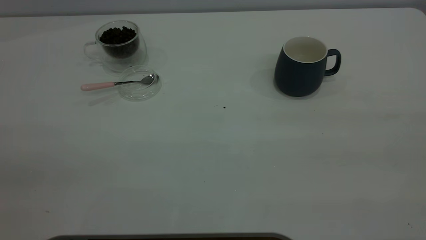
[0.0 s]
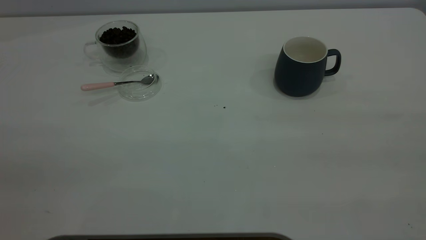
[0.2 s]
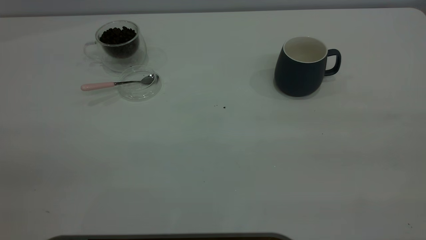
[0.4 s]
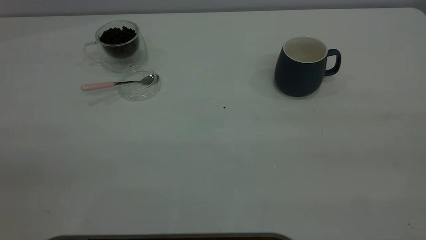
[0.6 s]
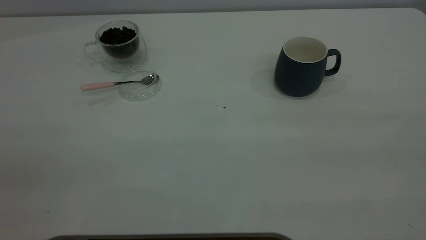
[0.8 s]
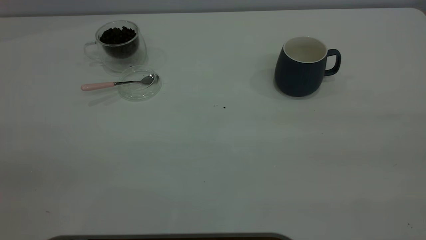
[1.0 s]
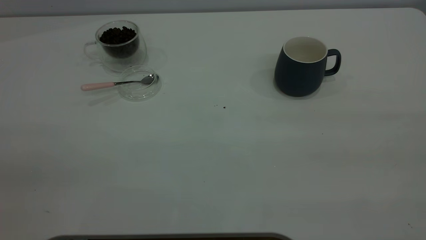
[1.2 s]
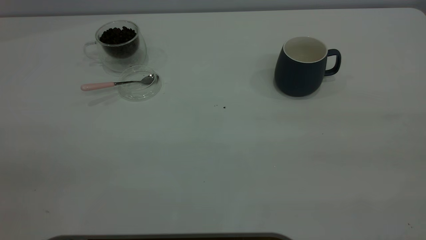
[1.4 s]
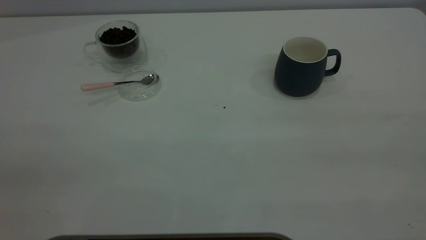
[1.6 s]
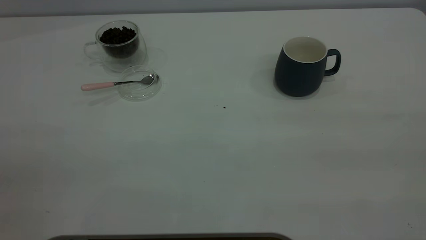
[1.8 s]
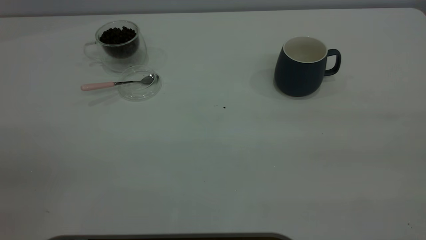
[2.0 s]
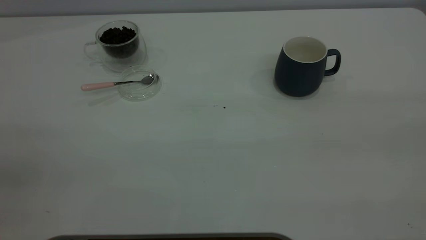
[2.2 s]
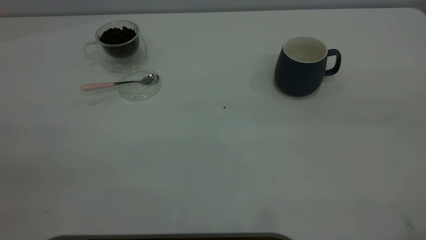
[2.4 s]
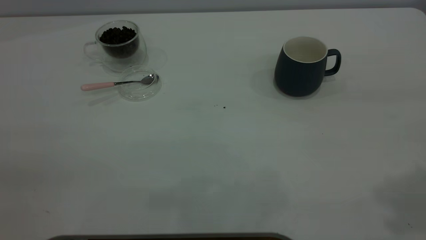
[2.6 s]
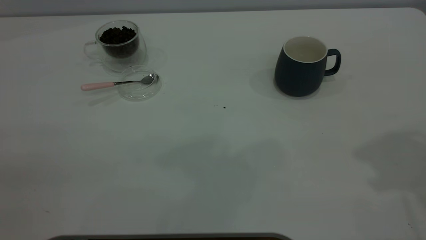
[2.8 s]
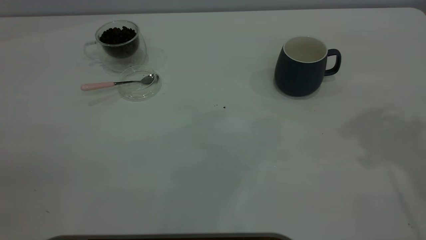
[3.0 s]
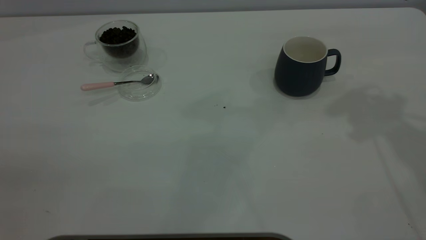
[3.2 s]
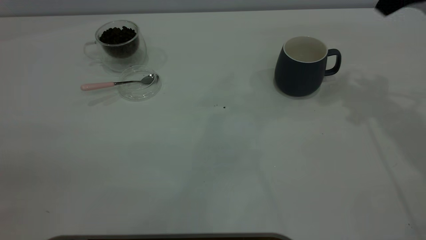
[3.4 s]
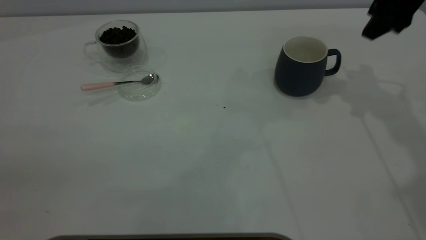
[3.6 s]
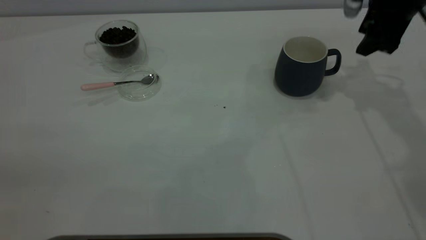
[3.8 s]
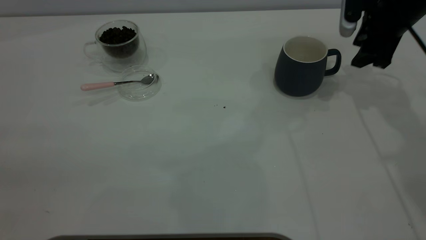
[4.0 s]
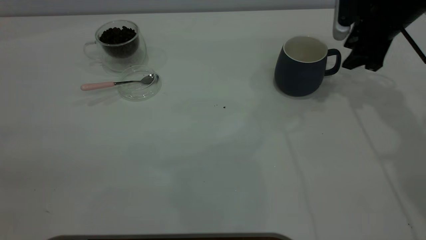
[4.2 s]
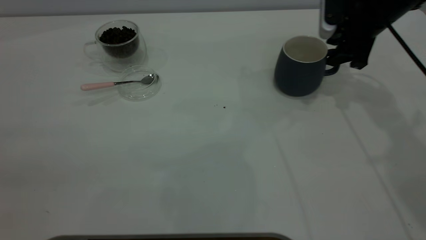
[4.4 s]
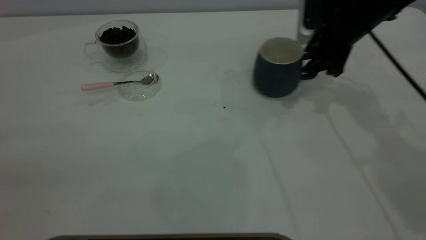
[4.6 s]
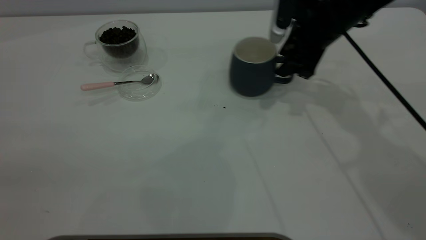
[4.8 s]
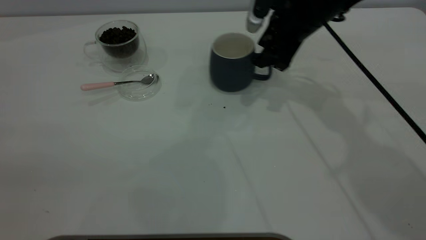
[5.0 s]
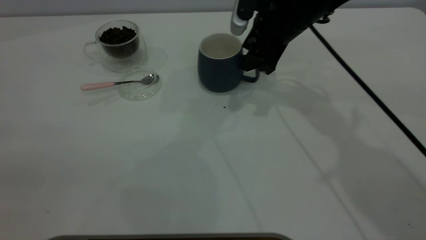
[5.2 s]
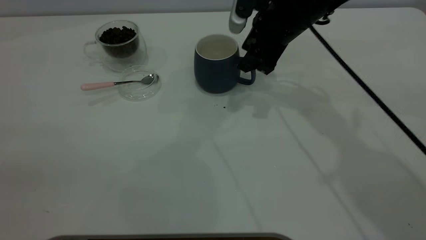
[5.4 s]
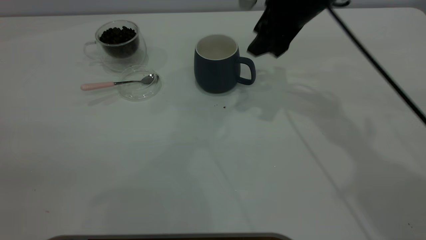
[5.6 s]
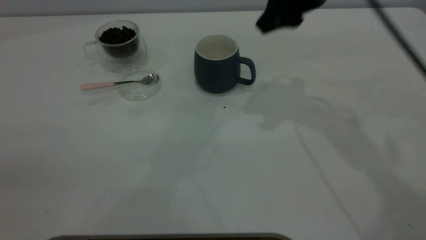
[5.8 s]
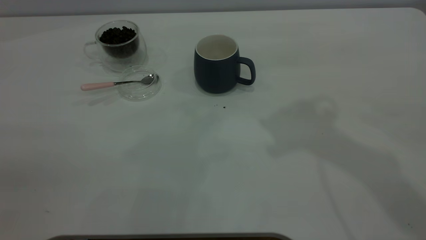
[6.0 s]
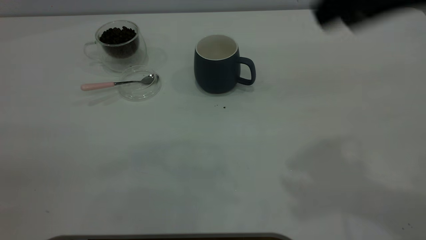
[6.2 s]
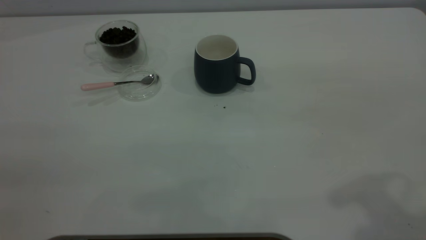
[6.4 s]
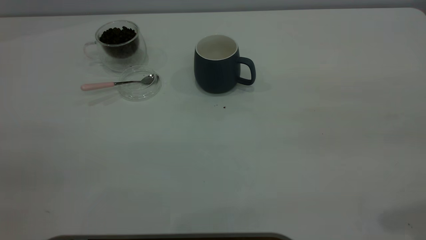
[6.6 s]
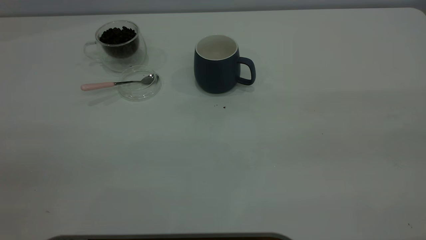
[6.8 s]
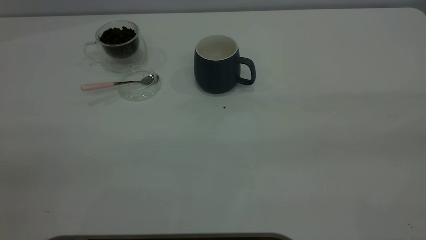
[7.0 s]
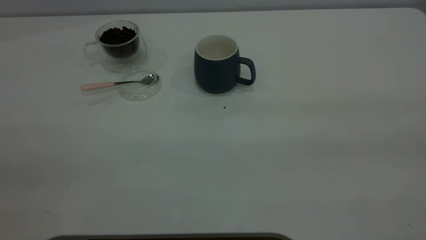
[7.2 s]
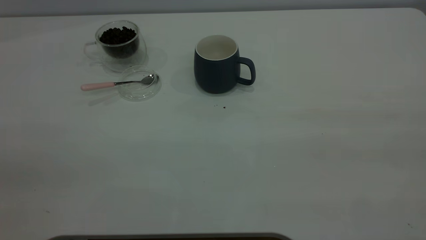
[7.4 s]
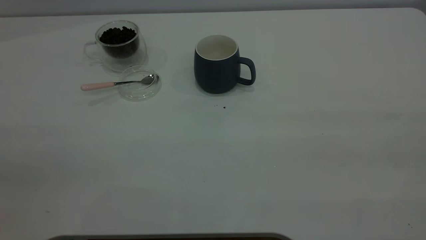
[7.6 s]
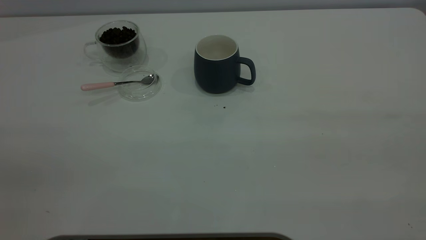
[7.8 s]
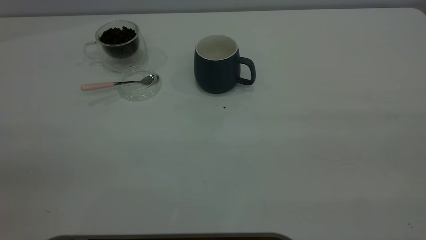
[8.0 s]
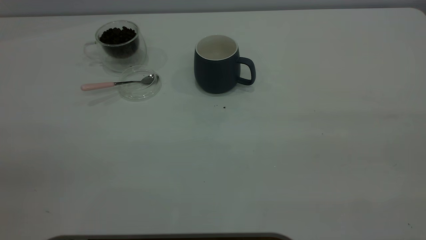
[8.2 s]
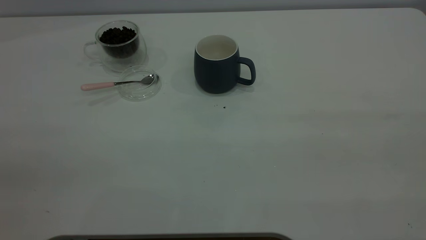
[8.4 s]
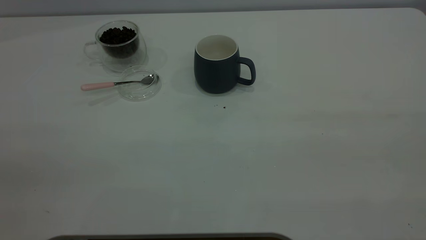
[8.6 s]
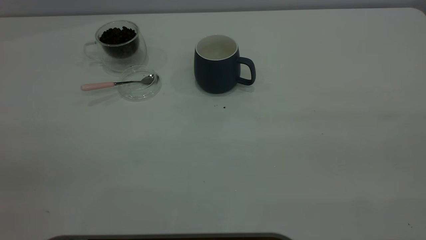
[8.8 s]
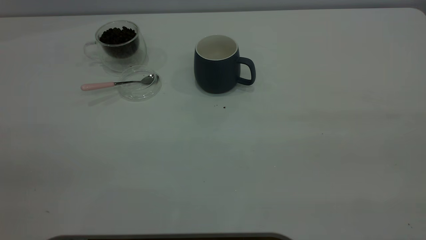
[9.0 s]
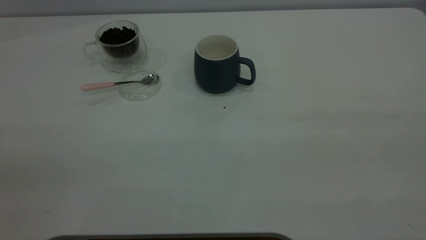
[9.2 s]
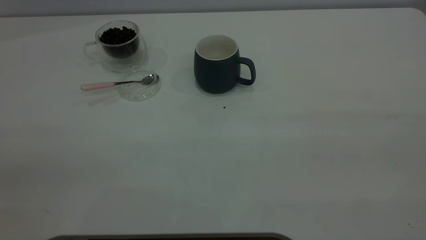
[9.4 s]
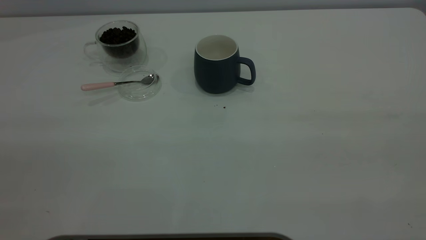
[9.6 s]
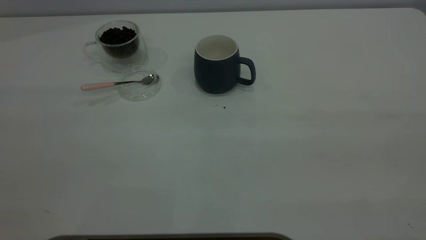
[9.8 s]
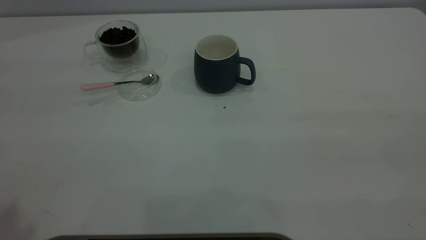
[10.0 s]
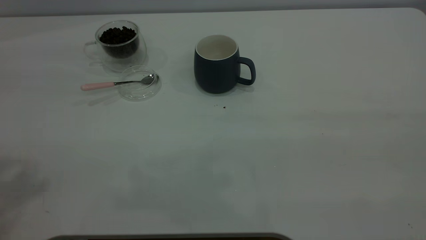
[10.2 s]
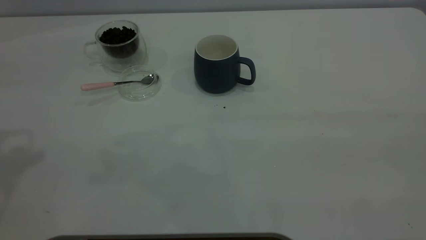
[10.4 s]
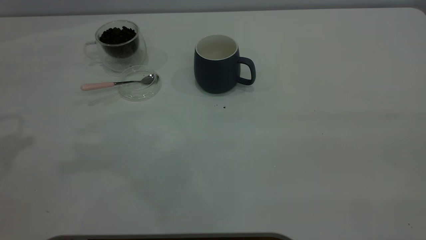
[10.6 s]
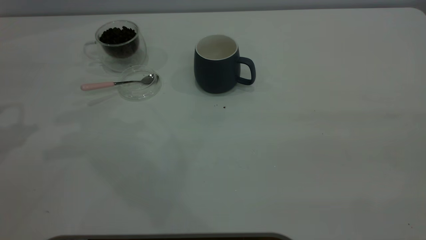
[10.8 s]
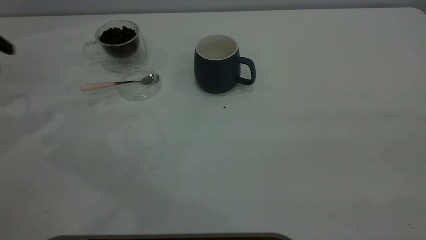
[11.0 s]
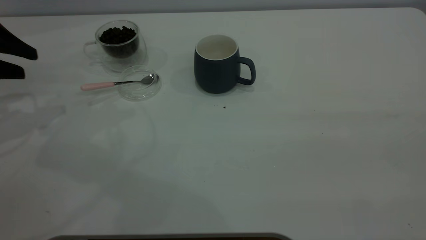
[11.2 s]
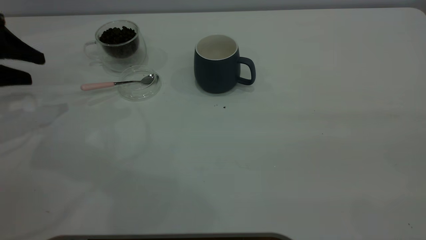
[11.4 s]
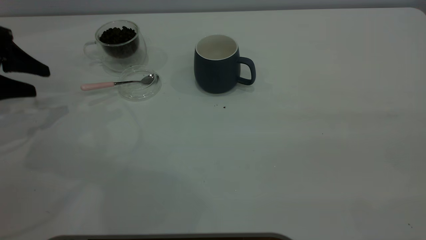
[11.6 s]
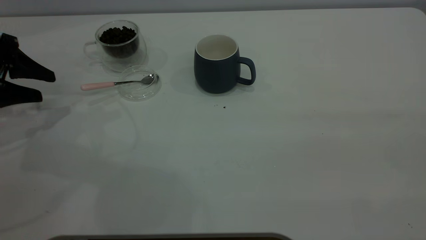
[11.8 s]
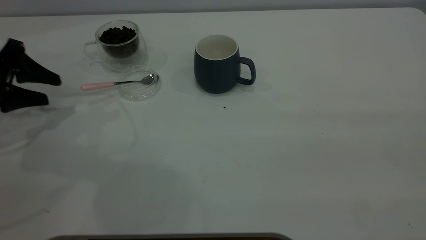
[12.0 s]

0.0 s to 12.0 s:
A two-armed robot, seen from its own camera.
Task of the whole recording: the right gripper place the grey cup in the center of the table, the left gripper take the pink spoon from the cup lid and scoop out the coffee beans from the coffee cup and put them into the grey cup, the left gripper put the spoon back into the cup lid.
Step, 0.0 to 5.4 s: Move the cup to the center of view.
0.0 to 1.6 s: Both grippers stay put.
3.0 to 4.4 s: The right gripper goes some 25 cm downward and forward.
4.4 to 6.0 s: The right gripper goes some 25 cm upward, backward and to the left.
7.6 to 9.0 s: Both grippers stay put.
10.4 to 12.0 s: The left gripper travels downward by some 25 cm.

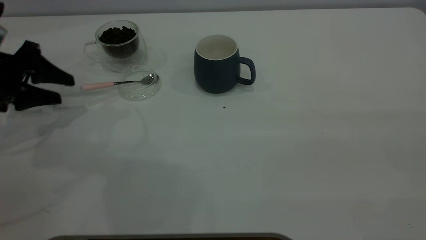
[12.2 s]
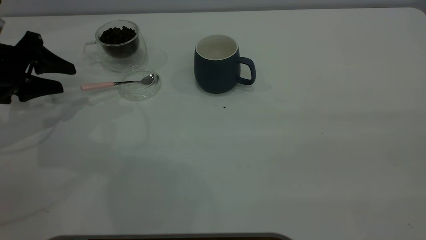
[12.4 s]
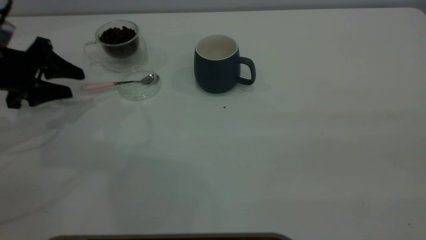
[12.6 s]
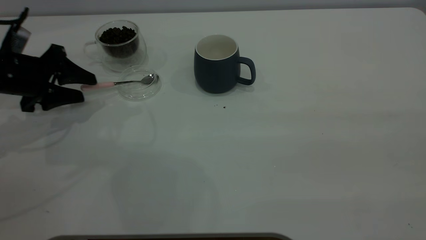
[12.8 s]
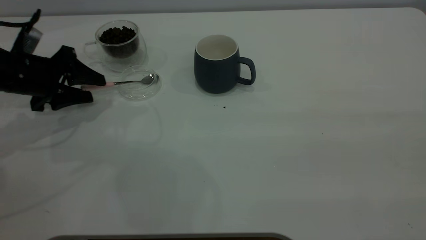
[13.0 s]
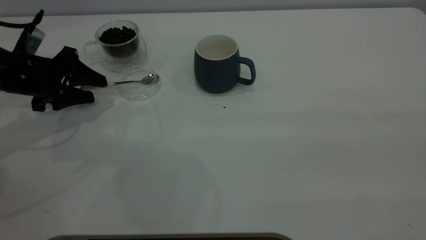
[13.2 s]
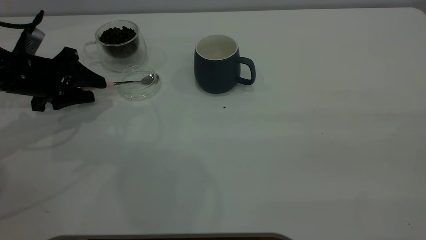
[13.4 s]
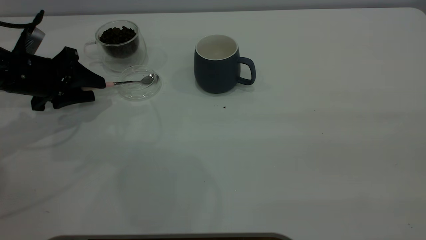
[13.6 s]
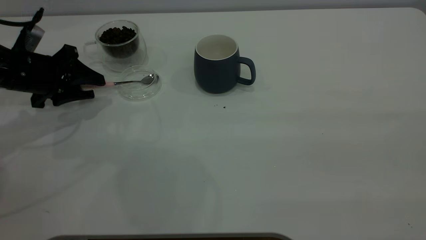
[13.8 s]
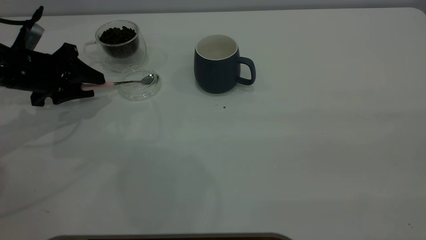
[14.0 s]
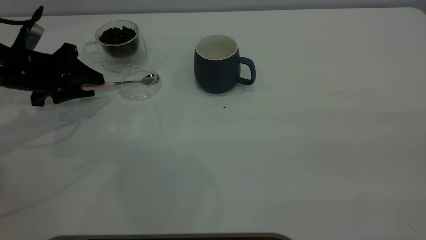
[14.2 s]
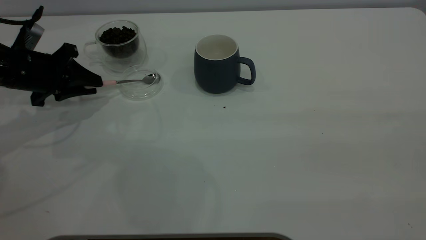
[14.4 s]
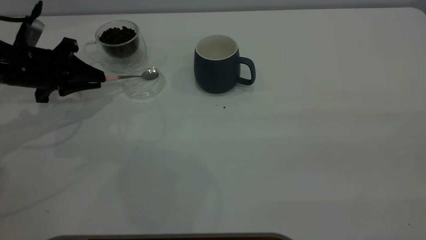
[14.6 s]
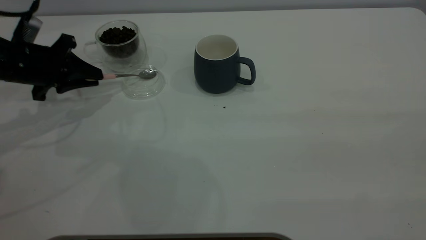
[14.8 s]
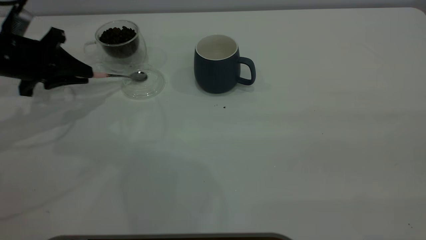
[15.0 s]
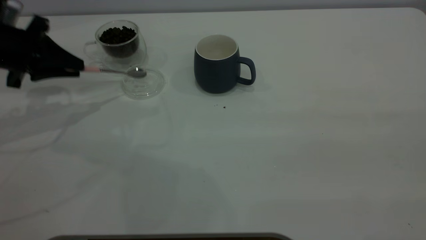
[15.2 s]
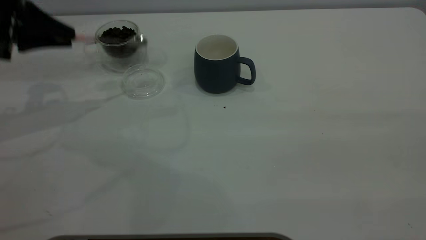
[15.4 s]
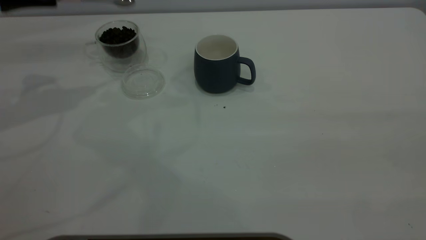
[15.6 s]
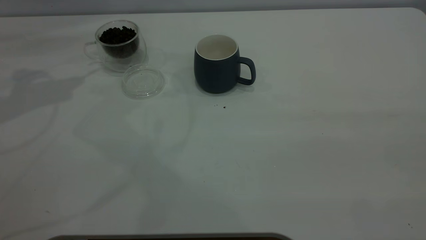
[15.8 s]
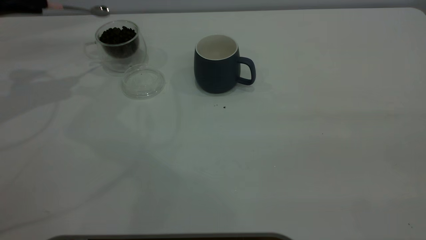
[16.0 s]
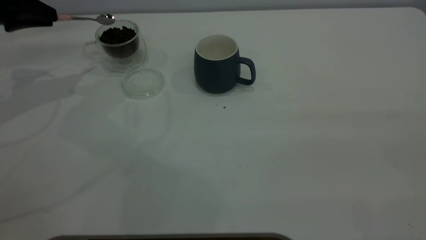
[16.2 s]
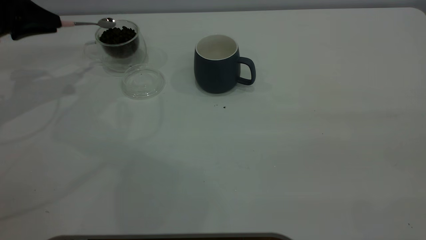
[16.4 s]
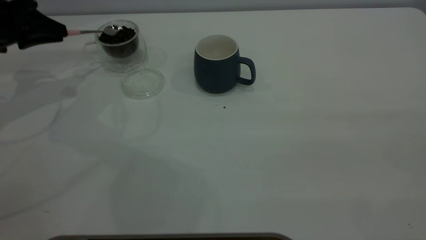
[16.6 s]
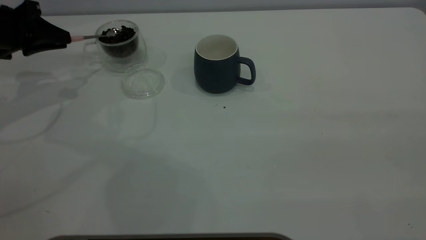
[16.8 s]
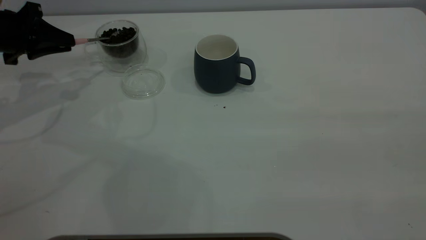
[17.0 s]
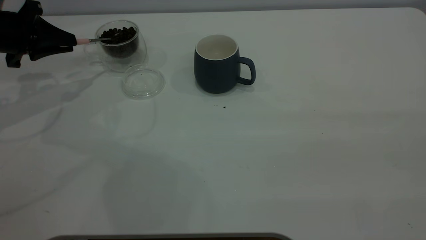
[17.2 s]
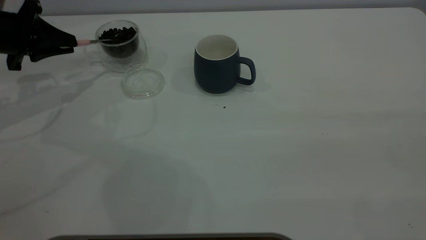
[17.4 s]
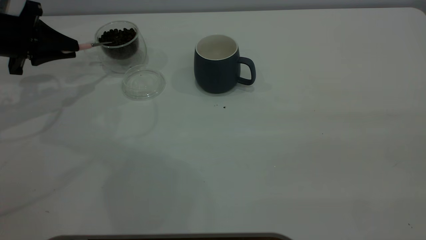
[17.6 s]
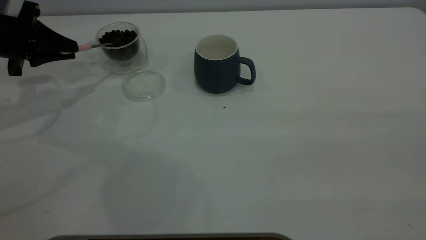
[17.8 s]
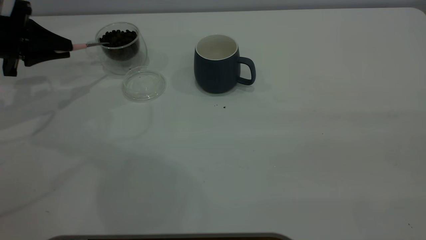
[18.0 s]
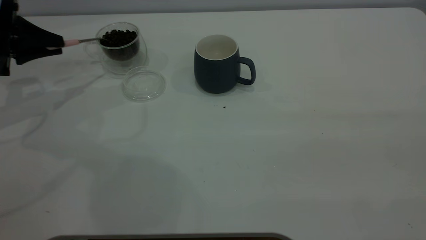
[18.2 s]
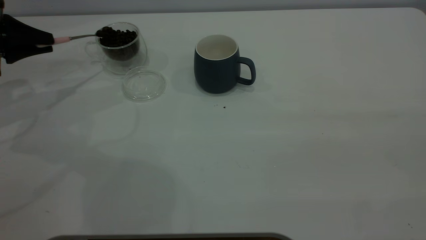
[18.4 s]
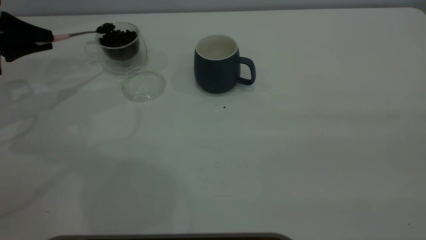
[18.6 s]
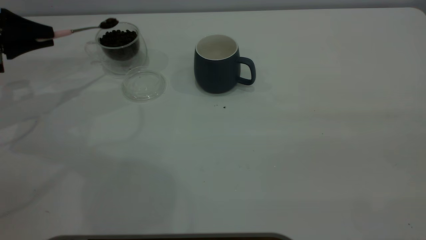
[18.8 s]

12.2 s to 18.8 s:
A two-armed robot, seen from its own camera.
Task of the whole recording: the right gripper place the grey cup in the center of the table, the left gripper take the pink spoon from the cup lid and scoop out the coffee beans from the coffee cup and put them into the grey cup, the left gripper put the spoon back into the cup lid.
Step, 12.2 to 14.2 s: Pick up the spoon.
12.2 to 13.8 s: The left gripper changes place by about 5 cm.
13.8 to 15.4 s: The left gripper moves upward, approximately 10 cm, and closes its fingers.
15.4 to 17.2 s: The left gripper heads downward, covering approximately 5 cm.
17.2 to 18.8 s: There are only small adjustments of the grippers.
